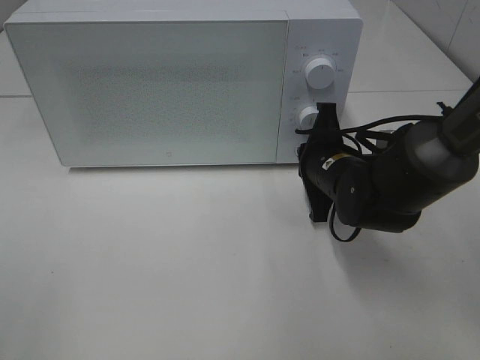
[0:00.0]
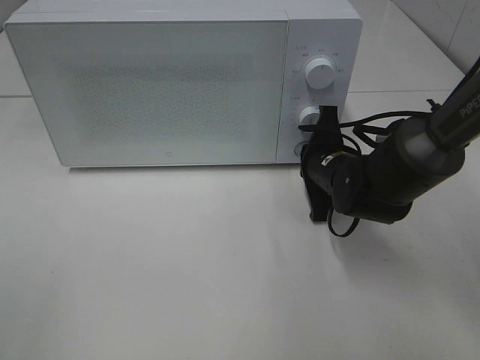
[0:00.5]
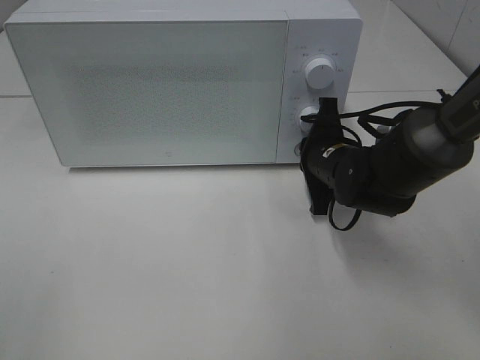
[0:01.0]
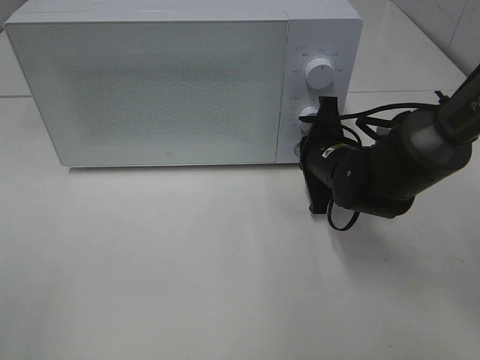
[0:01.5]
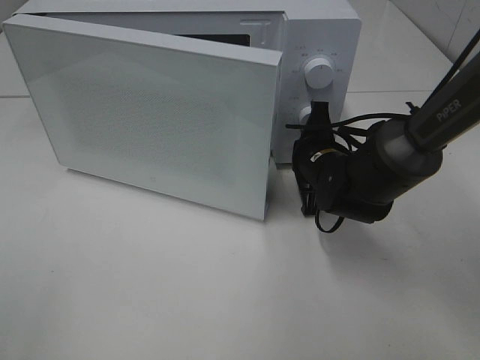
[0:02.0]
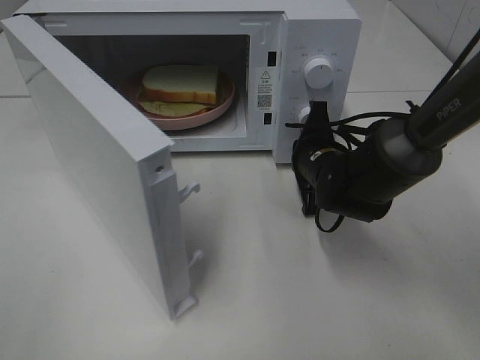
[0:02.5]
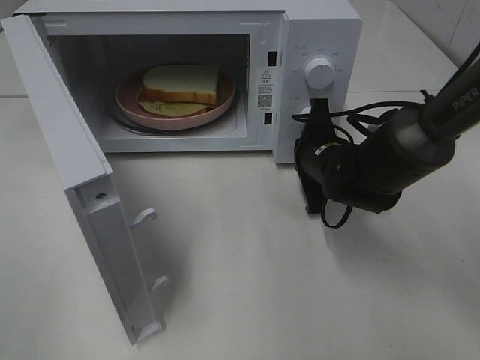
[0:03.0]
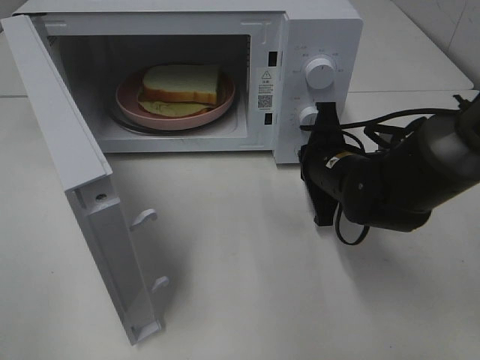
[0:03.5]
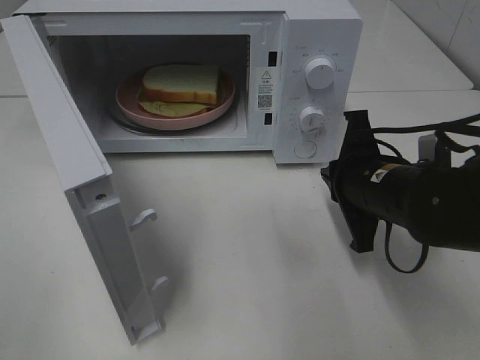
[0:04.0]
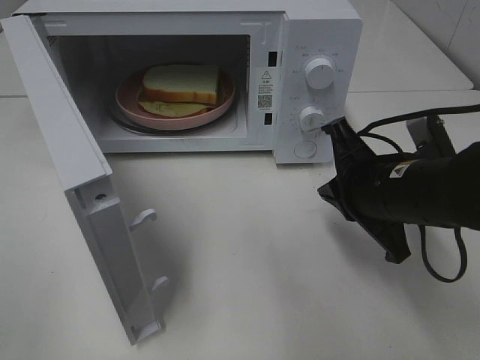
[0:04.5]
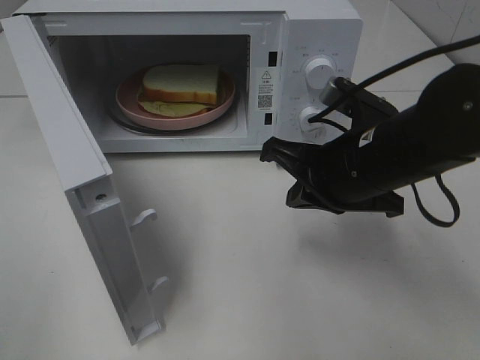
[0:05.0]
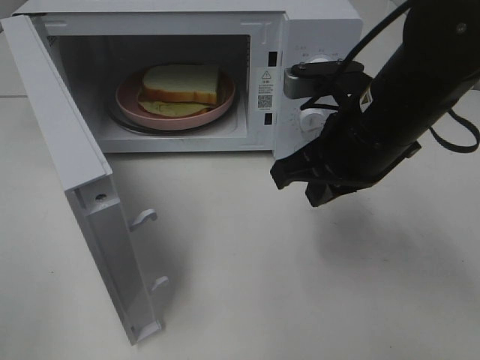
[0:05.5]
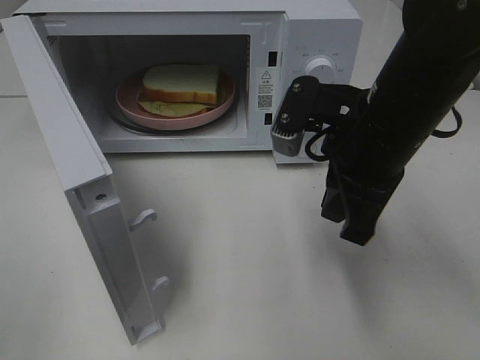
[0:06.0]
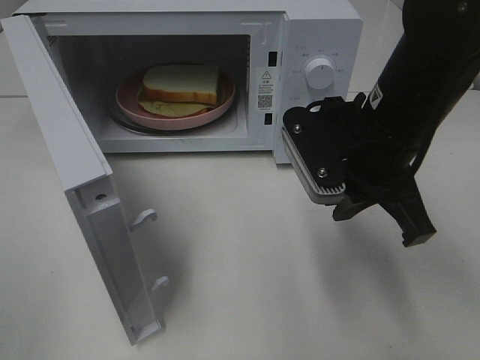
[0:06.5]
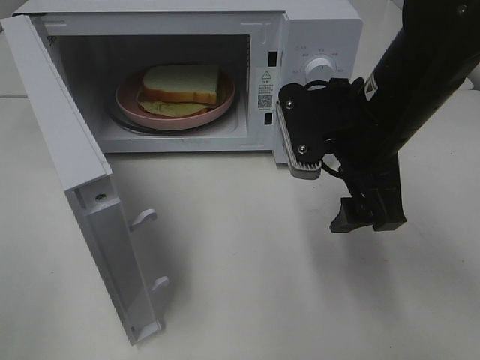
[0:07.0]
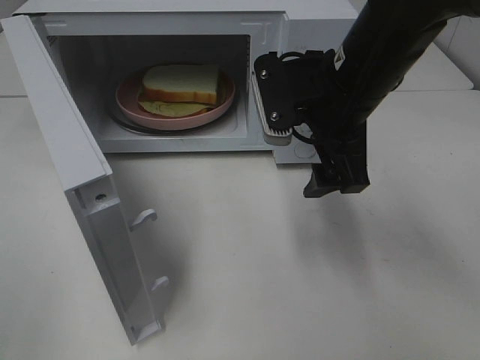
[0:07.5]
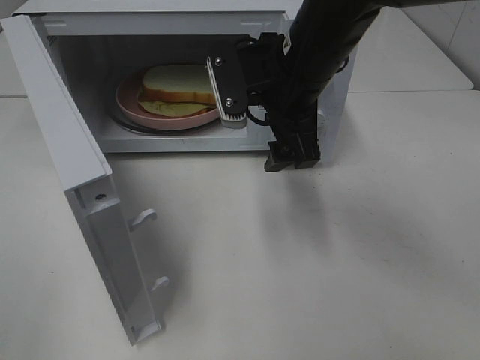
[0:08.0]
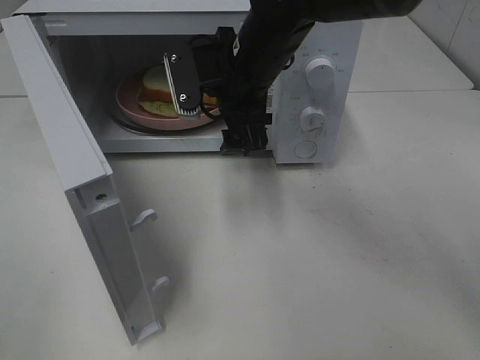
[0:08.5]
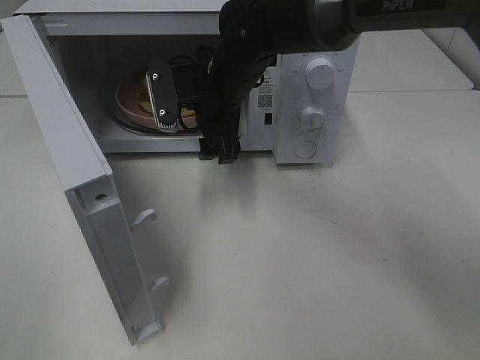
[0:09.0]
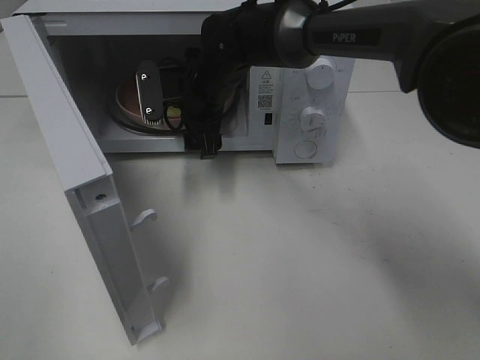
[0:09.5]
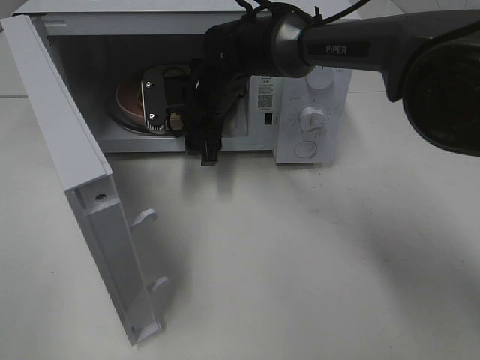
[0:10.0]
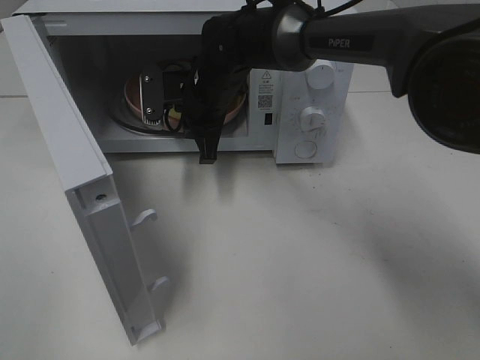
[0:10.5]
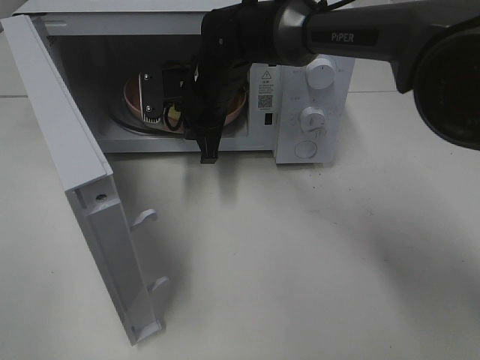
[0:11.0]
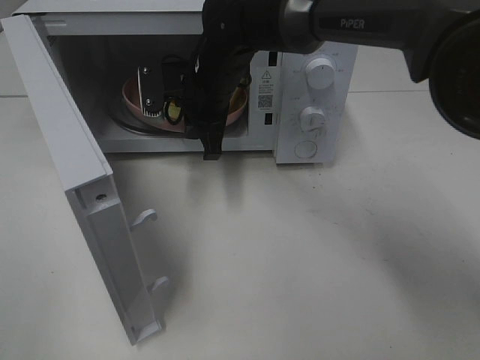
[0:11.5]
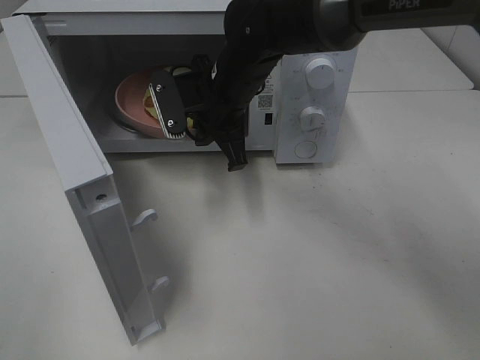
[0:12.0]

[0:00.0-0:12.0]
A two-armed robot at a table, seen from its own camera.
Task of the whole recording: Heat Sandwich.
Step, 0:00.0 to 0:03.0: Right hand: press the switch.
Step, 0:03.5 to 0:10.5: Right hand: grab the plate with the sandwich.
0:00.0 to 0:02.0: The grippers stay close to where they were, moving slightly.
0:02.0 to 0:04.0: The right gripper is displaced backward and upward by about 10 cm.
0:04.0 to 0:06.0: The right gripper shifts about 10 cm upward.
0:06.0 to 0:08.0: The right gripper goes approximately 10 cm forward and to the left, and opens its fingers.
0:08.0 to 0:10.0: The right gripper is displaced forward, downward and to the left by some 15 cm.
0:10.0 to 0:12.0: The right gripper changes place by roughly 5 cm, and closes.

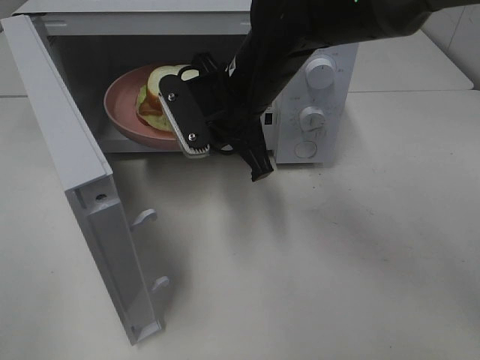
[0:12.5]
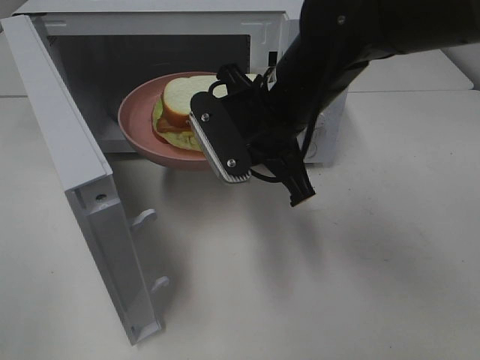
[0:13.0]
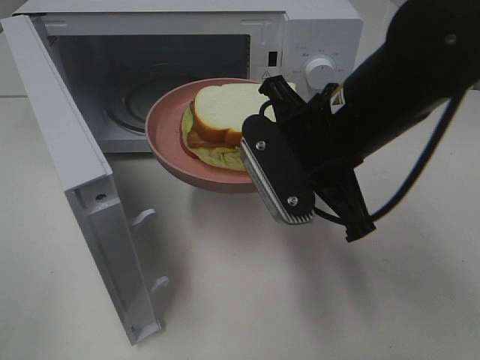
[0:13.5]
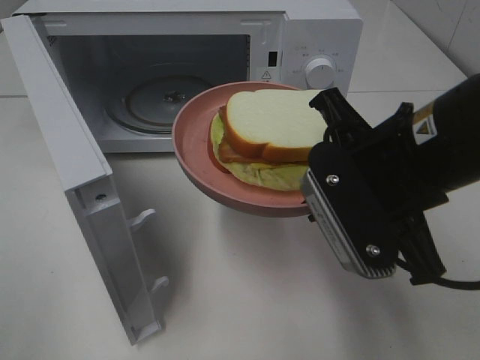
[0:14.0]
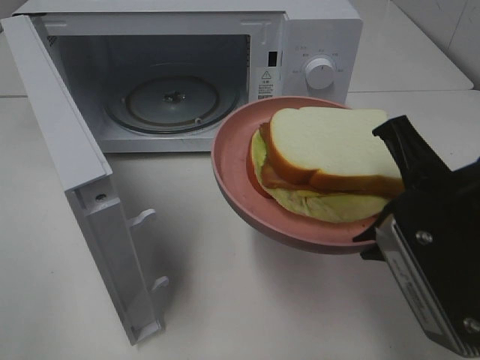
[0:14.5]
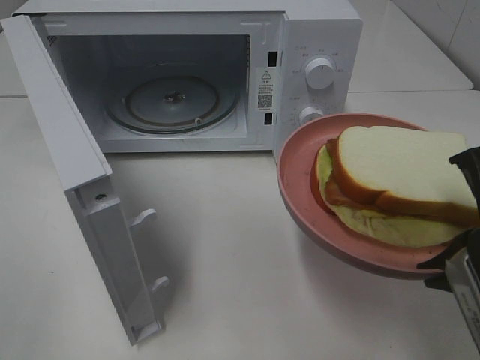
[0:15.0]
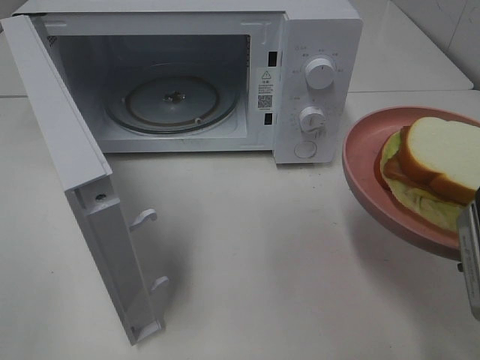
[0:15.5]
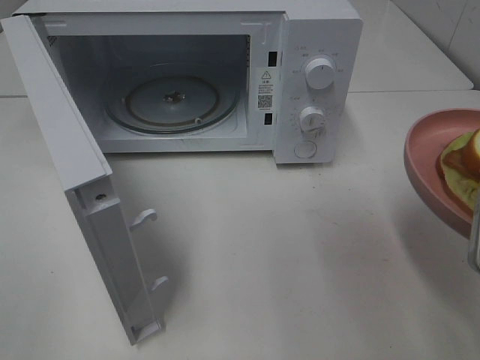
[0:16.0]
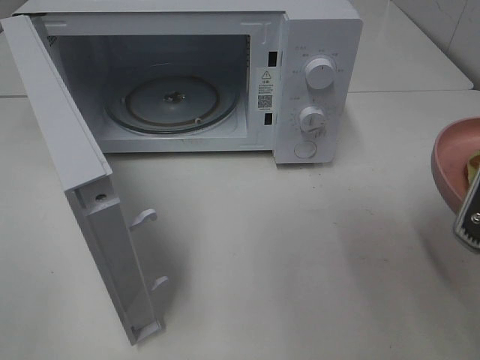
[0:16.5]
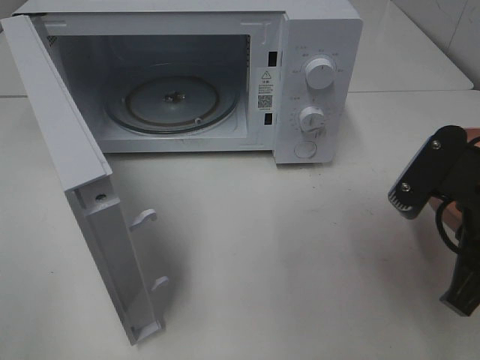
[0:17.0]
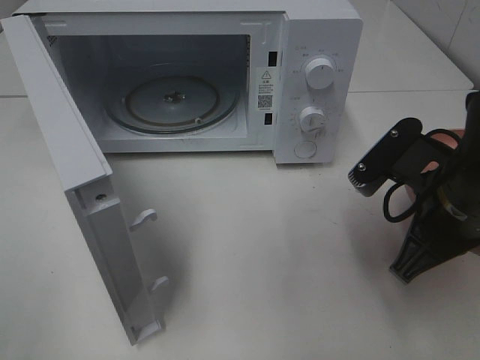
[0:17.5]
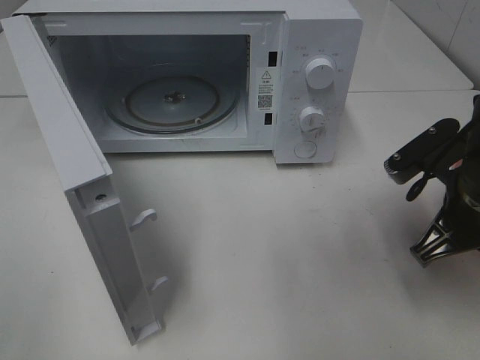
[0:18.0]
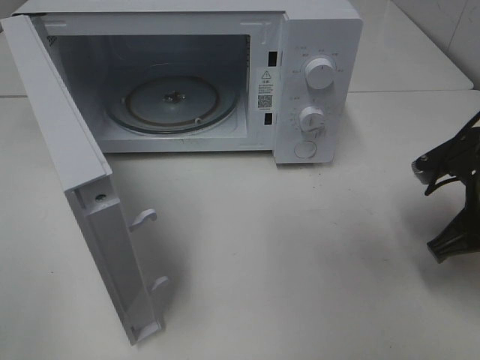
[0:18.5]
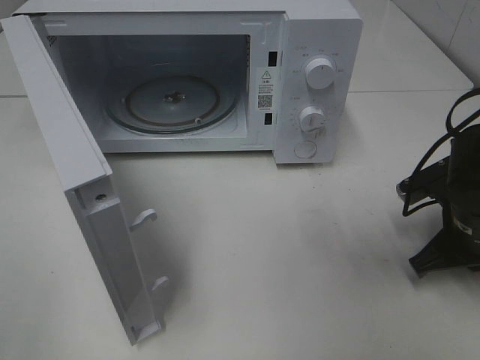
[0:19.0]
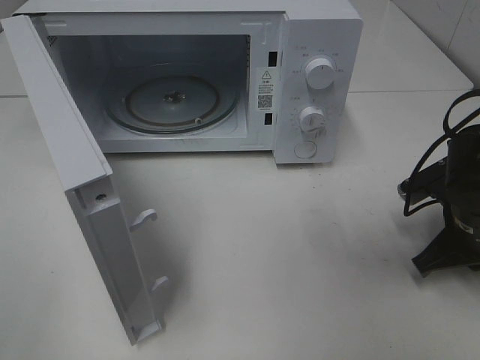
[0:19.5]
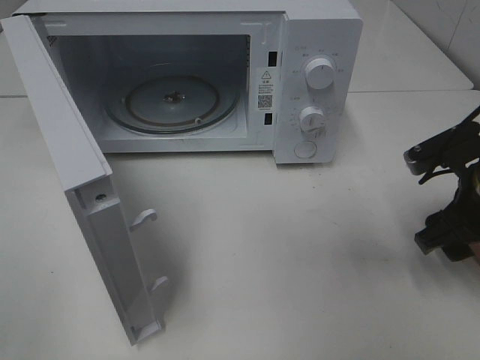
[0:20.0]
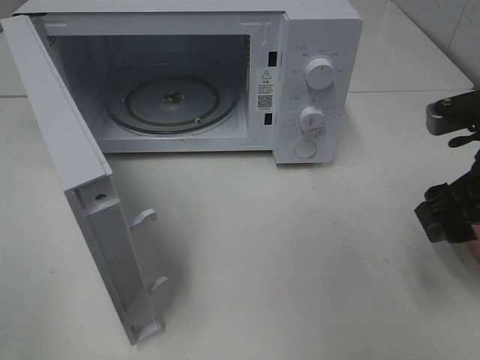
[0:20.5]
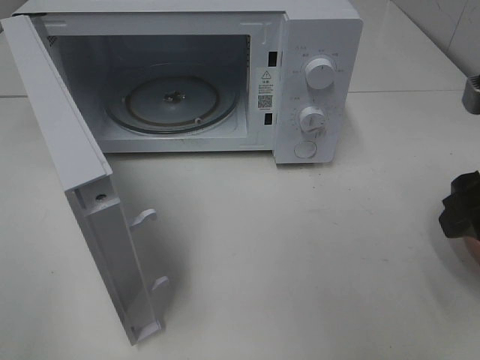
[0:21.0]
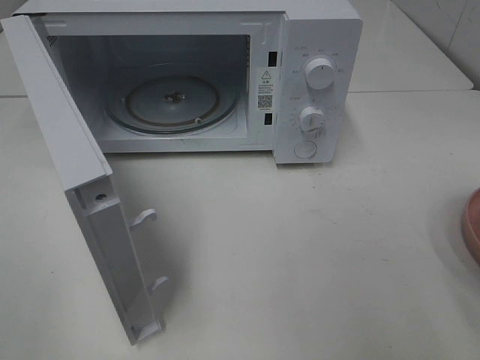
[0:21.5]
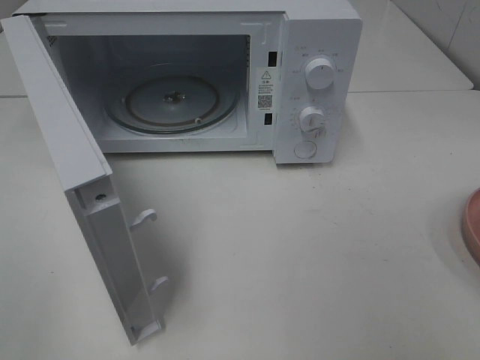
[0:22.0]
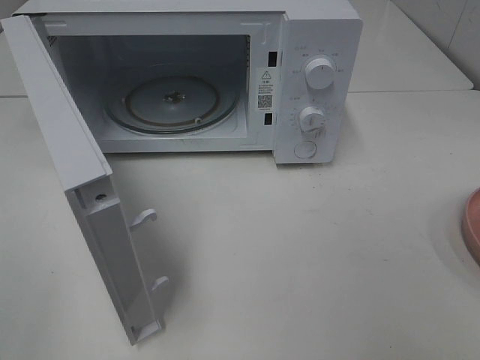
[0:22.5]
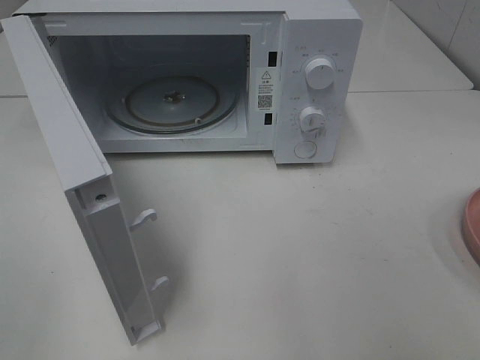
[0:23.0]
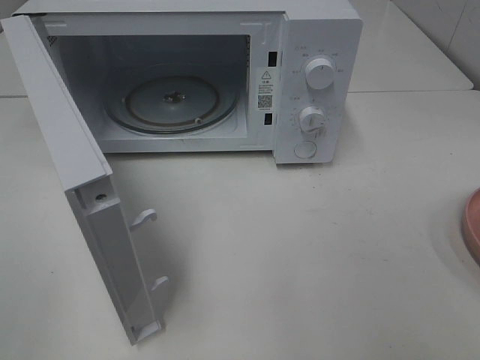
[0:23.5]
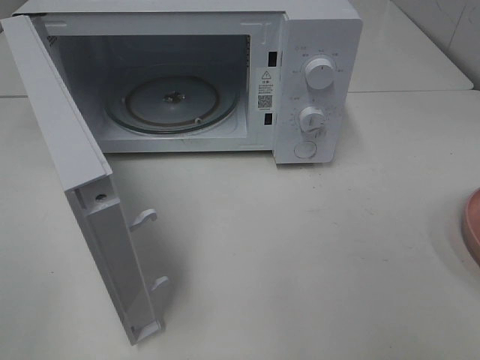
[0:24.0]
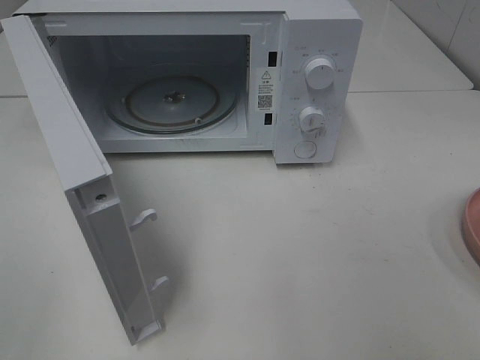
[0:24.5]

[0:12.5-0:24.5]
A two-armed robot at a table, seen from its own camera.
Task of the whole recording: Heat Sandwich.
Step, 0:12.5 to 0:20.5: Right hand: place the plate on the table.
0:12.5 to 0:14.5: The right gripper is displaced backward and to the right by approximately 25 cm.
0:14.5 to 0:16.5: The right gripper moves to the right, some 5 cm.
0:16.5 to 0:18.5: The right gripper moves forward and downward, about 15 cm.
0:18.5 to 0:20.5: The right gripper heads upward, covering roughly 5 cm, and opens its fingers.
0:20.5 to 0:22.5: The right gripper travels backward and upward by about 25 cm.

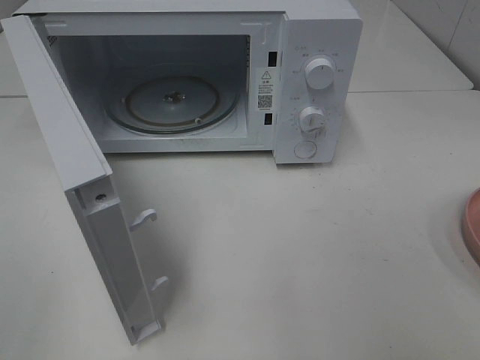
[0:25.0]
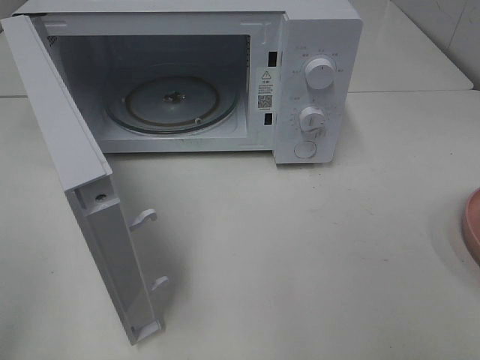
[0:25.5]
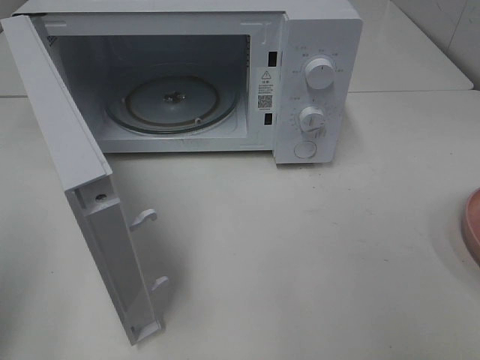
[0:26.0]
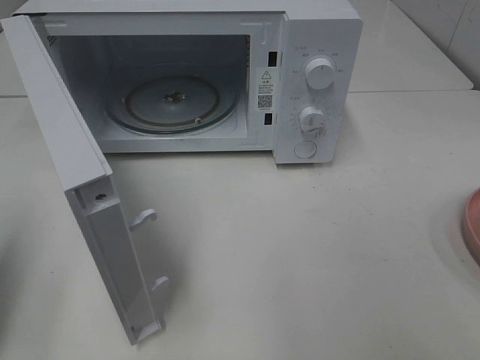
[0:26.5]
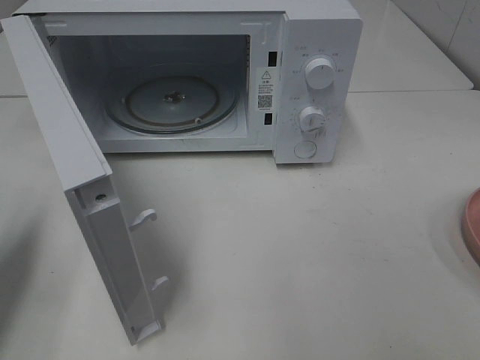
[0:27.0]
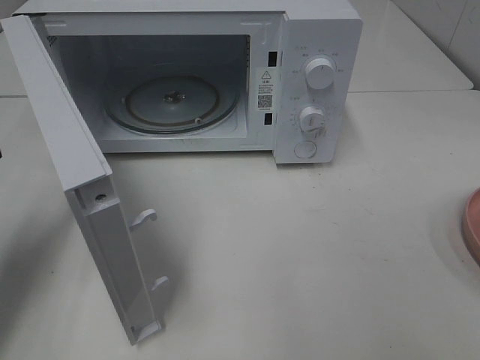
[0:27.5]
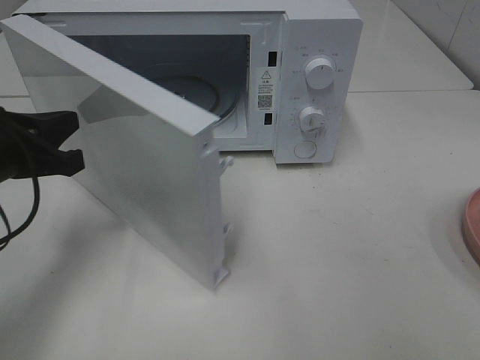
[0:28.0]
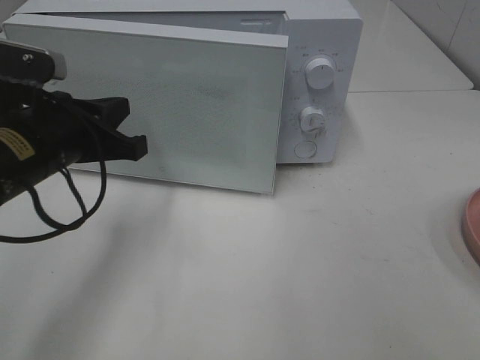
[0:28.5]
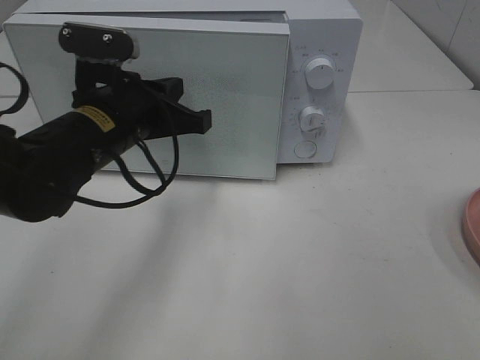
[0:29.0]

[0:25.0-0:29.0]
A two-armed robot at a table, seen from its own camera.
Task of the whole recording: Heat Sandwich.
0:25.0 to 0:27.0: The left gripper heads forward, covering about 20 cm, and closes.
0:27.0 to 0:29.0: The left gripper is displaced to the right and forward by some 25 cm.
